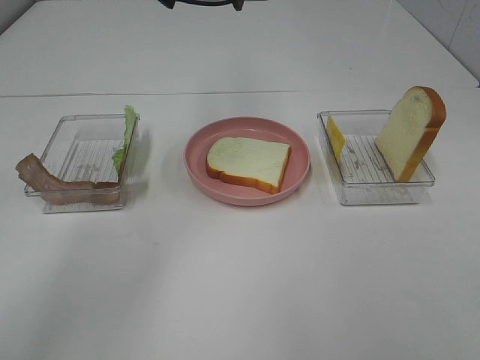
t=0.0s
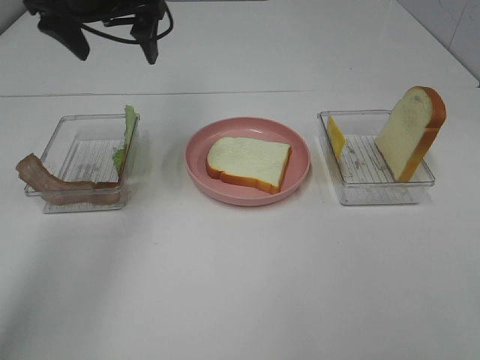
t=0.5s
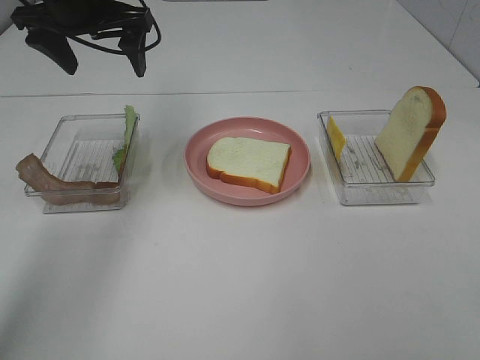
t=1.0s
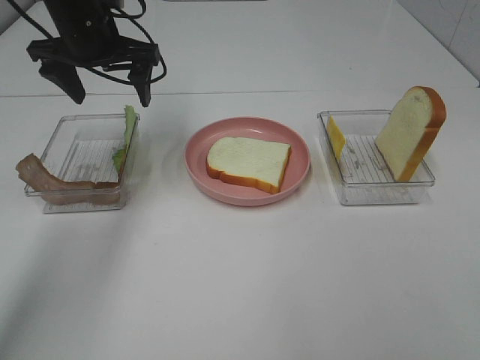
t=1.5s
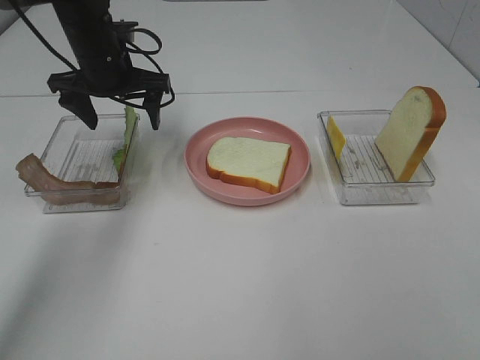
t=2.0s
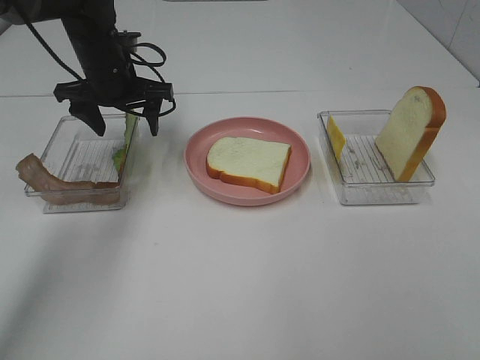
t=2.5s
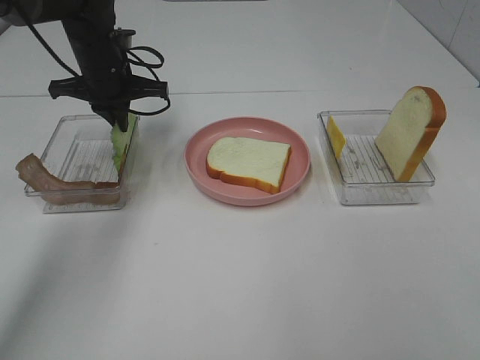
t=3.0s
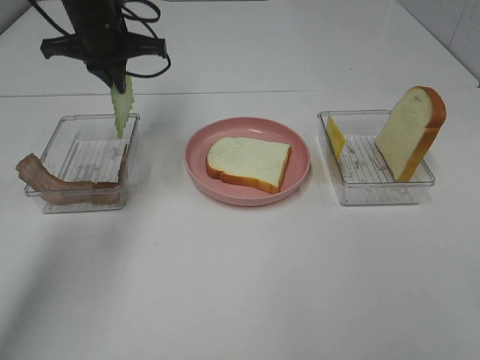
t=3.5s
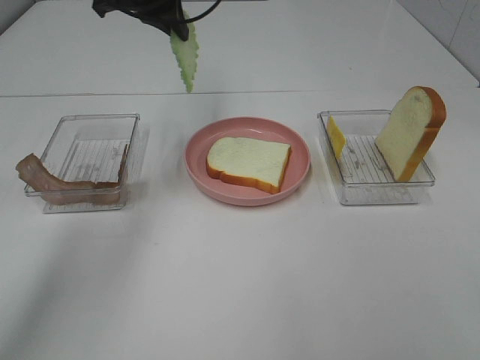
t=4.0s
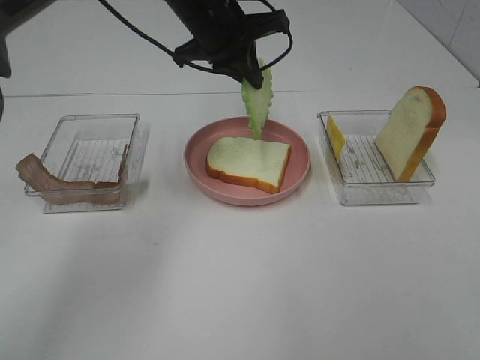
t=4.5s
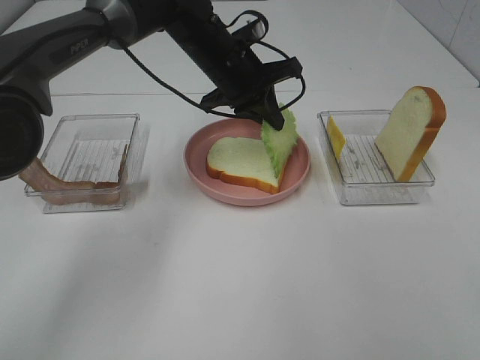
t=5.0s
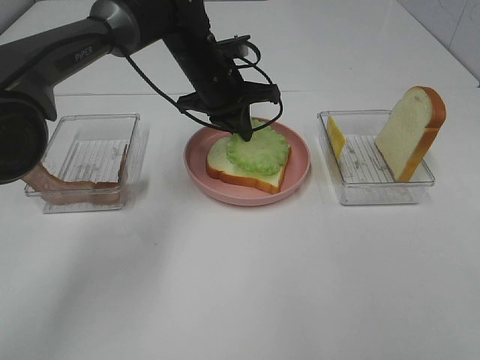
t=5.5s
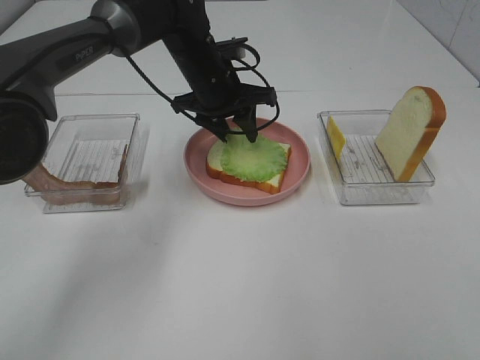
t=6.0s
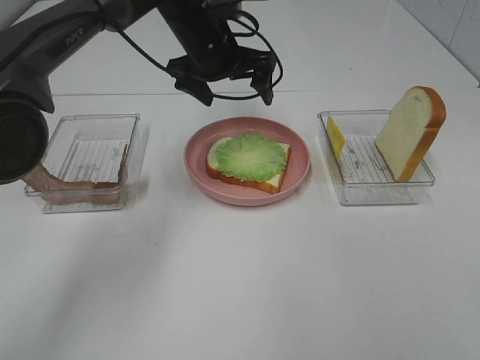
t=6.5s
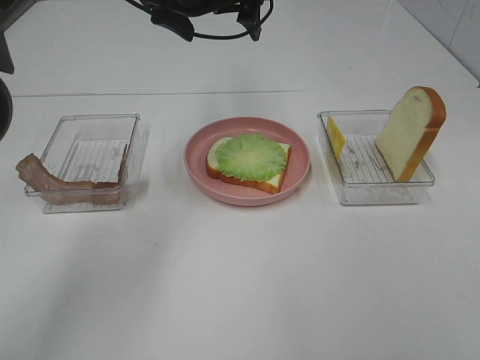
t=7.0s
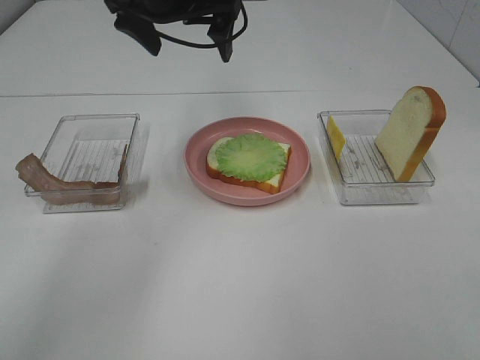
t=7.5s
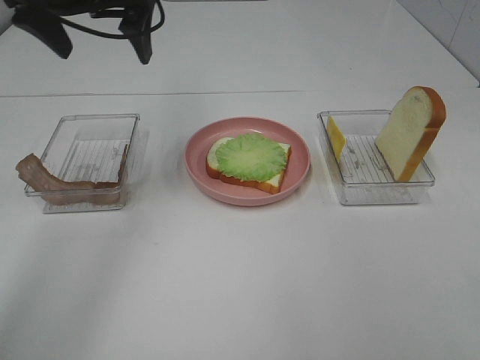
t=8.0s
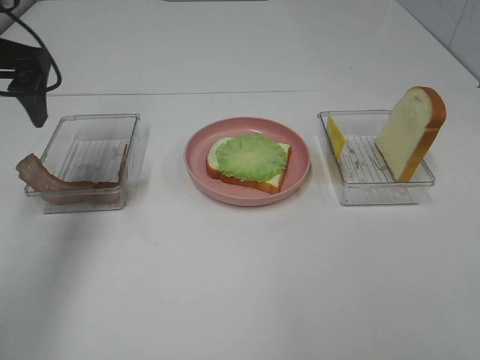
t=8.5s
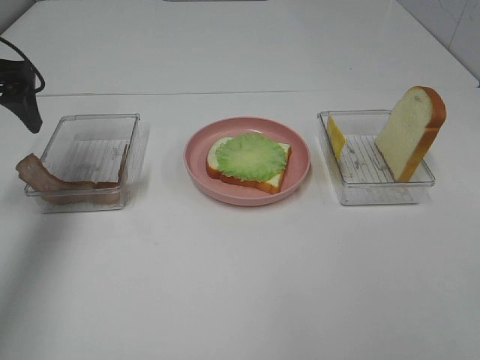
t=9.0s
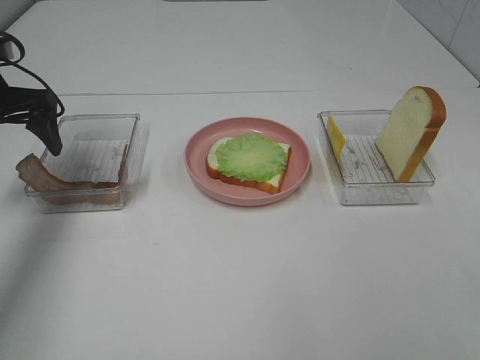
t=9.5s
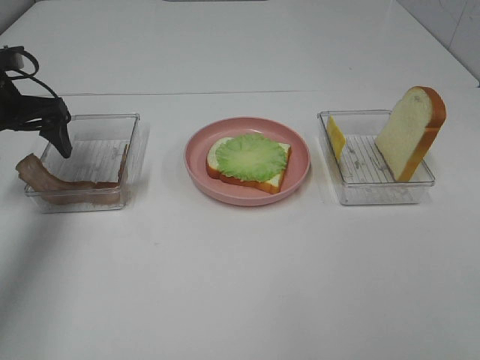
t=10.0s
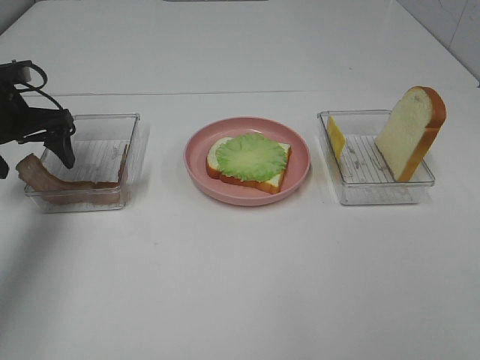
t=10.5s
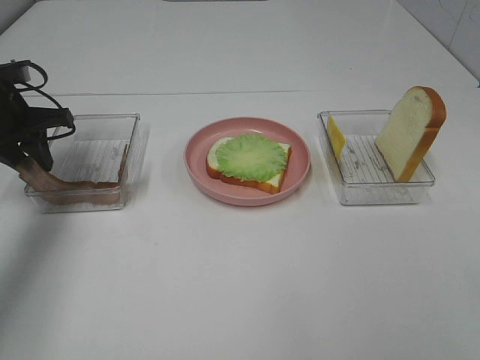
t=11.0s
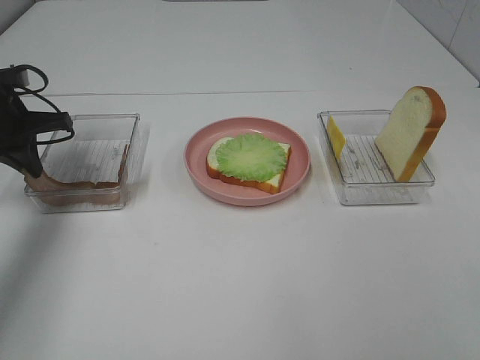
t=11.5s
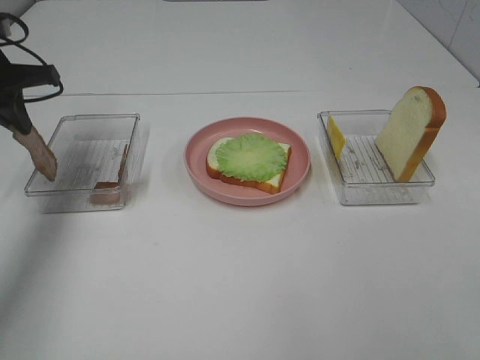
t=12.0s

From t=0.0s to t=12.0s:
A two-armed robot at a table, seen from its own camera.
Task of the whole recording: Make sandwiches.
Step, from t=0.0s to t=3.0s: Left hand:grab the lettuce slice.
Step, from t=3.5s to t=6.0s: Left hand:place the lettuce slice on the bread slice.
Step, from t=6.5s to t=11.5s: Left hand:grab the bacon.
From t=0.0s to t=2.0s: The left gripper heads downward and to the left, covering roughly 20 cm.
From t=2.0s to t=4.0s: The left gripper heads upward and to the right, covering about 10 cm, and closes.
From t=4.0s to t=6.0s: The left gripper travels downward and to the right by roughly 15 cm, and opens up.
From t=6.0s to t=8.0s: The left gripper moves upward, to the left and backward, about 20 cm, and opens.
From t=8.0s to t=10.0s: The left gripper travels downward and to the left by some 20 cm.
From t=10.0s to t=12.0s: The left gripper closes up.

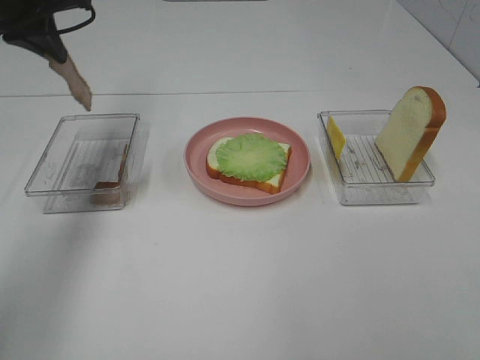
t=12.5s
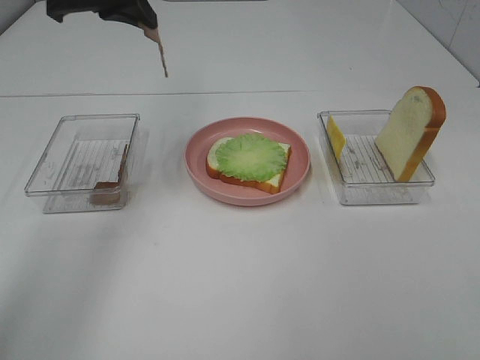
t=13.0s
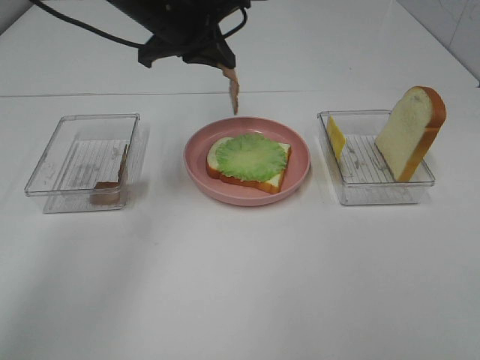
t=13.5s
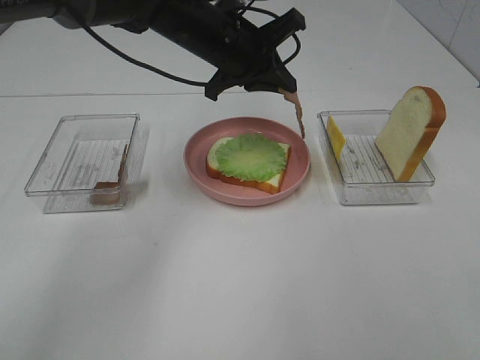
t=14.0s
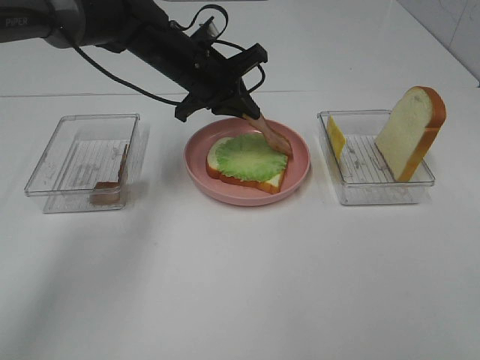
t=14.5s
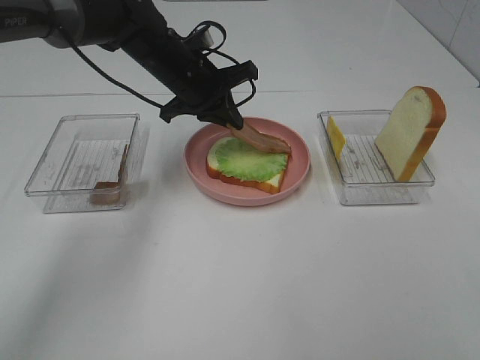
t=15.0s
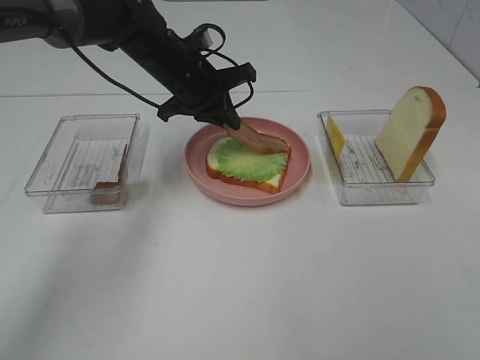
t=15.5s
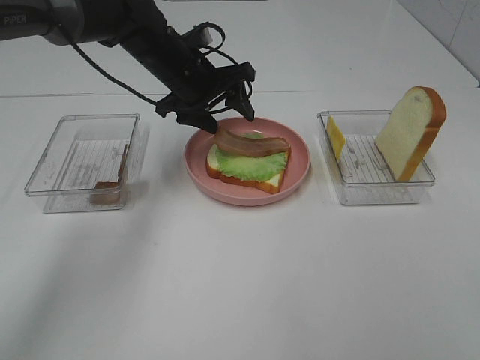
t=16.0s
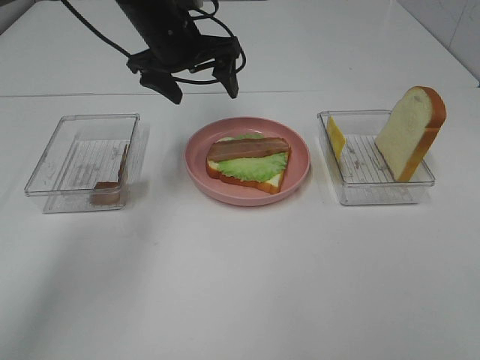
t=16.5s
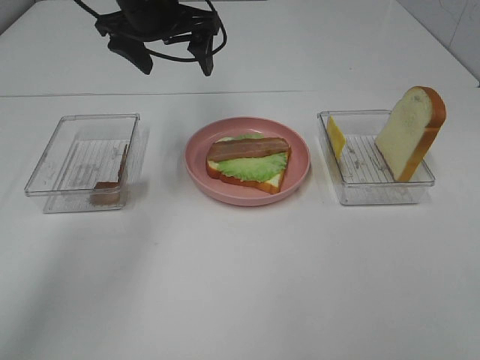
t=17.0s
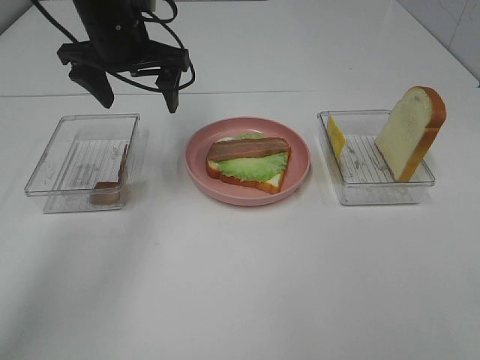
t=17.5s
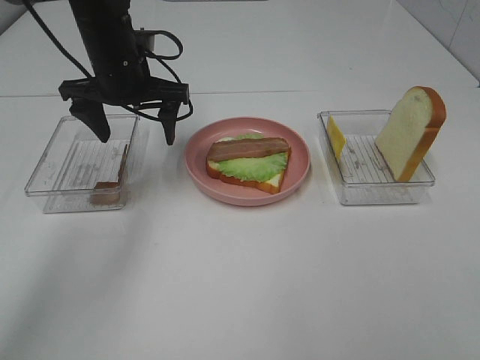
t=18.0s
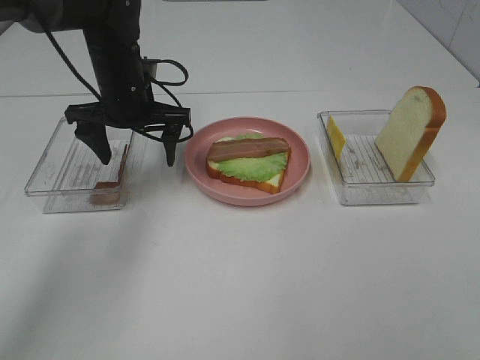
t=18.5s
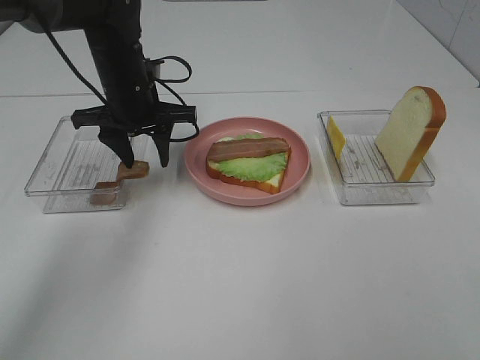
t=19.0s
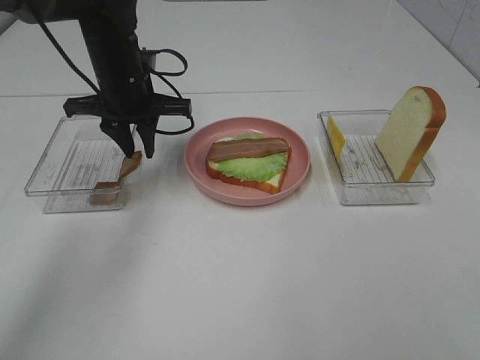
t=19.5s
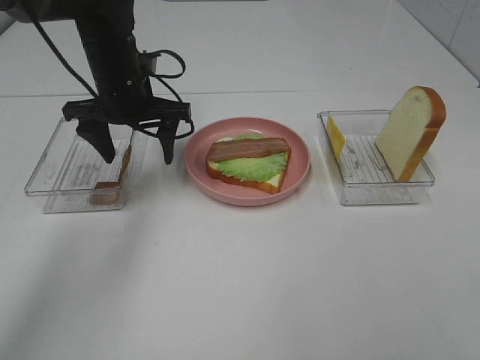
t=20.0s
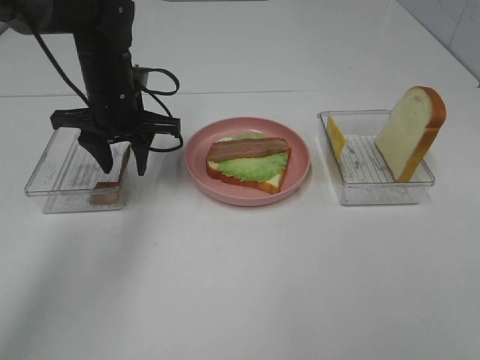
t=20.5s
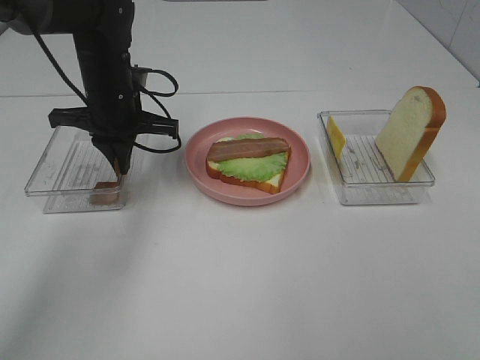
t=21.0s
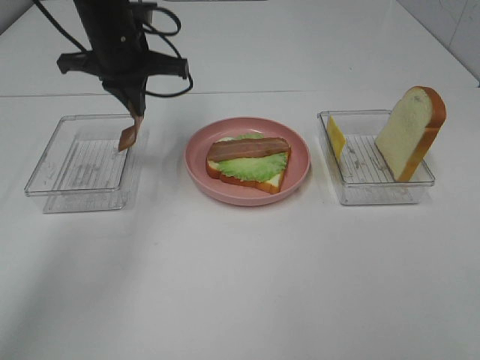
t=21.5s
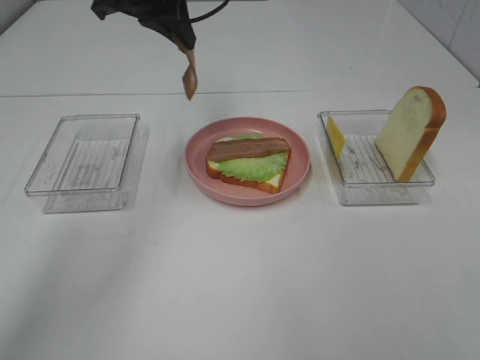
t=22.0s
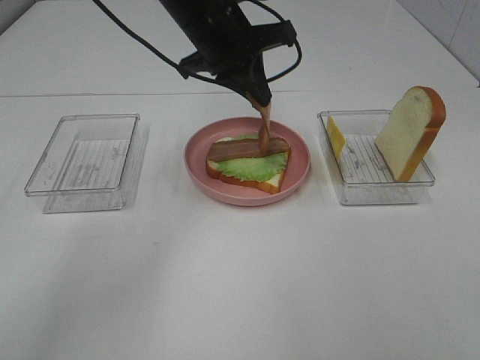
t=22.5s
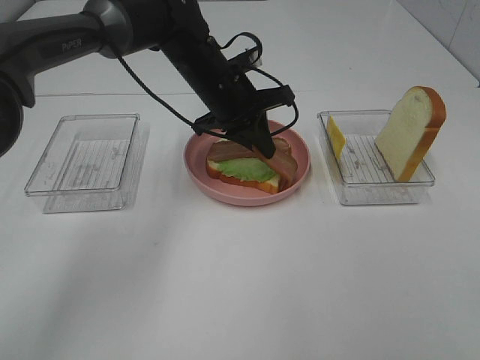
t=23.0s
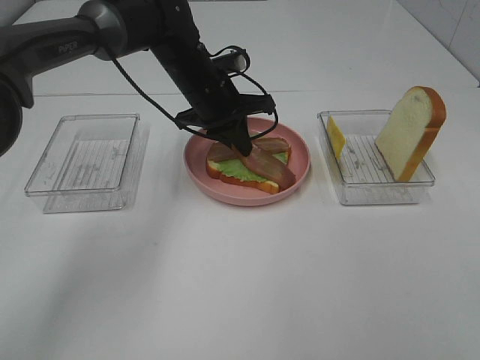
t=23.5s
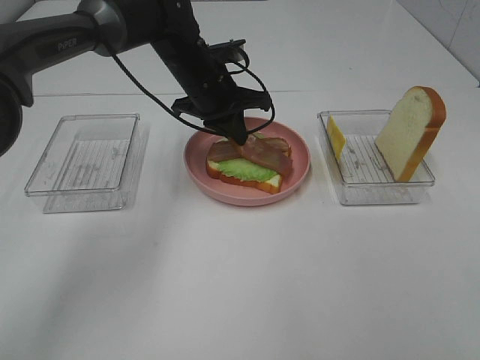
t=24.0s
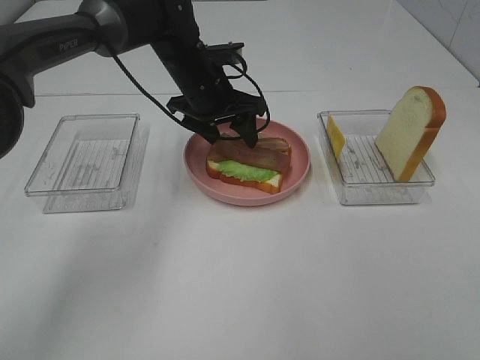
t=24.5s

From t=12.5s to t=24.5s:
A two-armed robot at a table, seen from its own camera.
Task of the whole recording: Make sandwiches.
Step, from t=12.5s to t=16.0s: Left hand:place bacon on lettuce slice.
Step, from t=16.5s to t=20.5s: Left hand:grab the bacon.
From t=12.5s to t=14.5s: The left gripper goes about 20 cm to the right and downward.
From t=14.5s to t=16.5s: The left gripper moves upward, roughly 5 cm, and opens up.
From t=16.5s to t=18.5s: The left gripper is displaced downward by about 5 cm.
From t=18.5s to t=20.5s: The left gripper closes.
From t=20.5s to t=22.5s: The left gripper moves to the right and upward, approximately 15 cm, and closes its fingers.
From t=22.5s to t=24.5s: The left gripper travels downward by roughly 10 cm, and opens up.

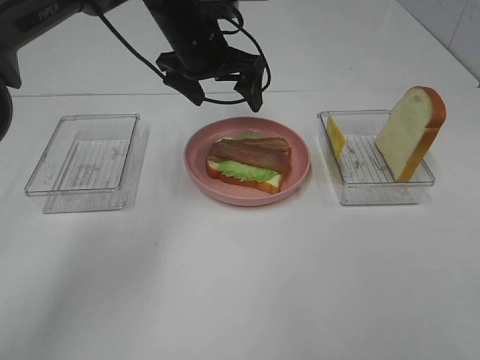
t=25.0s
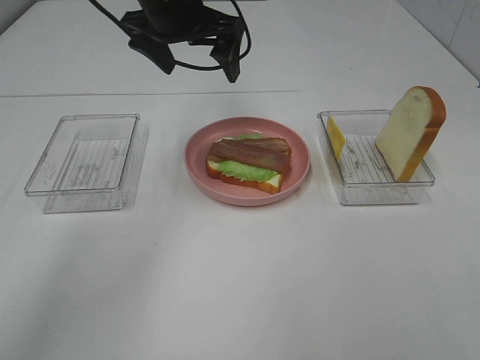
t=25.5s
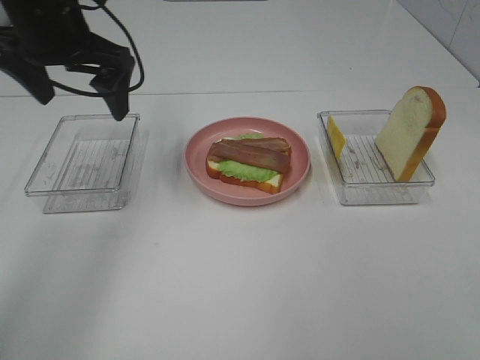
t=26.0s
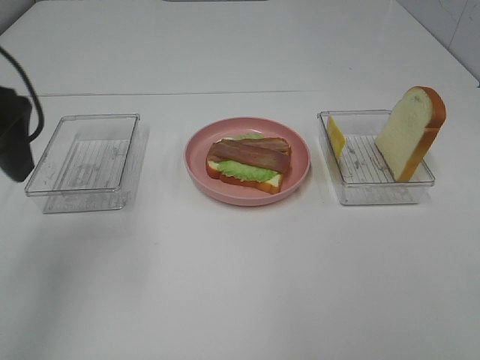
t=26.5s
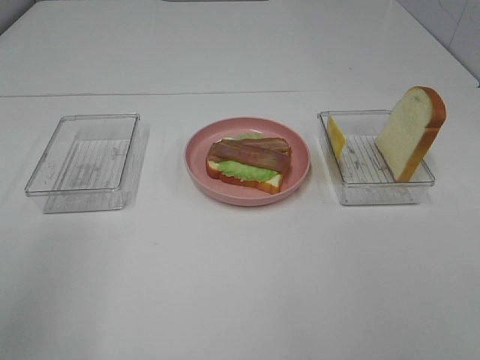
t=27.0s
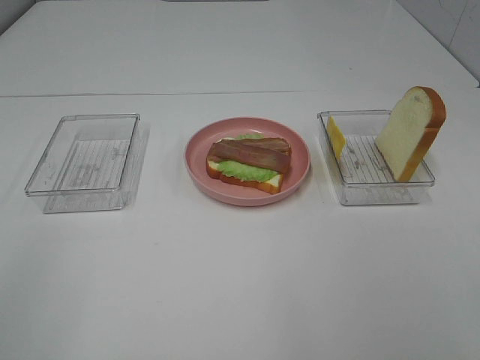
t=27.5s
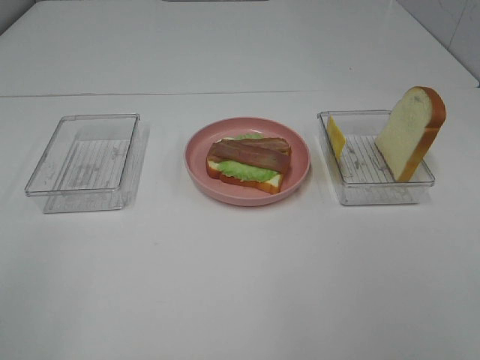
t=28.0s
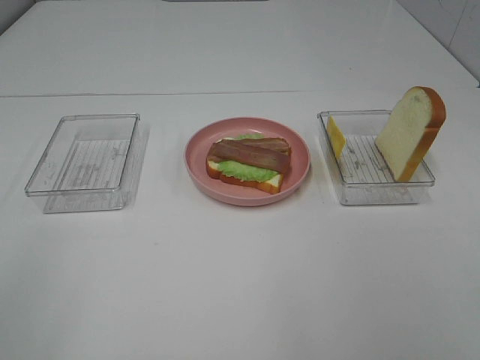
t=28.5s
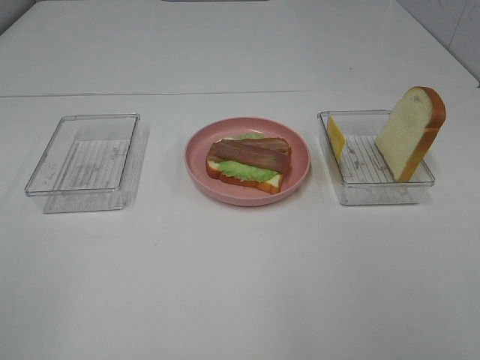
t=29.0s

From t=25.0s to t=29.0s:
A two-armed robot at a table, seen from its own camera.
Task of the whole recording: Make sandwiches.
From t=25.0s to t=27.0s: The left gripper shifts about 40 cm backward and to the left.
